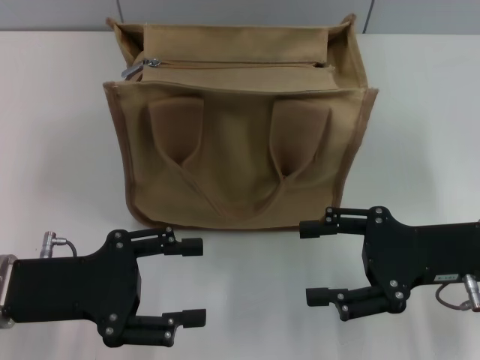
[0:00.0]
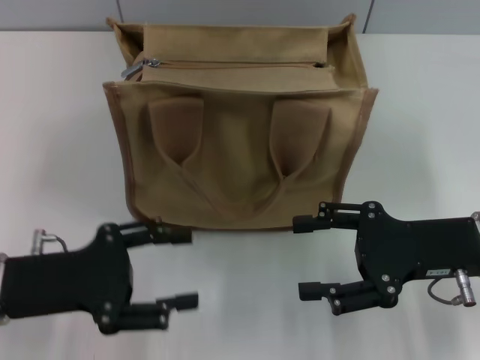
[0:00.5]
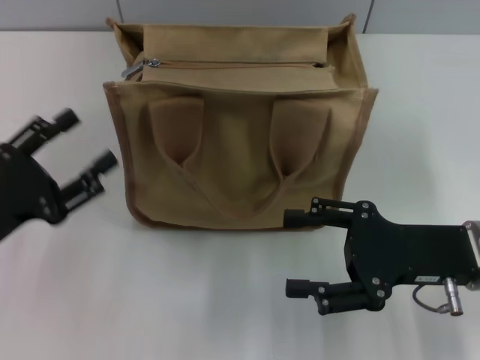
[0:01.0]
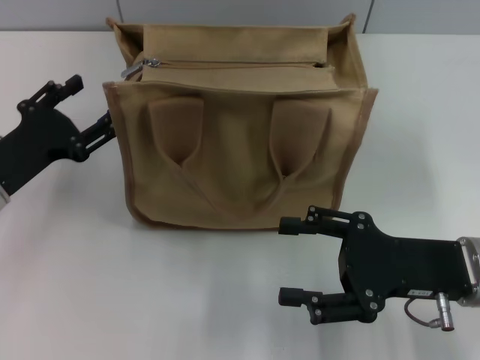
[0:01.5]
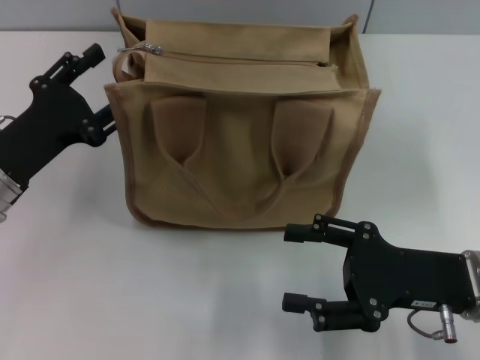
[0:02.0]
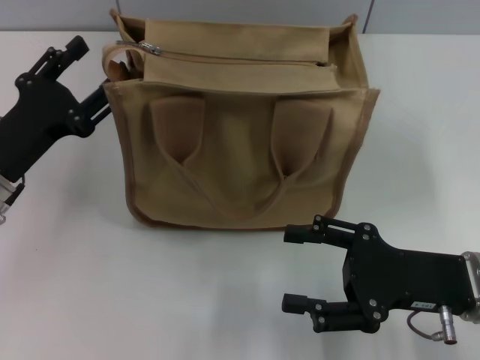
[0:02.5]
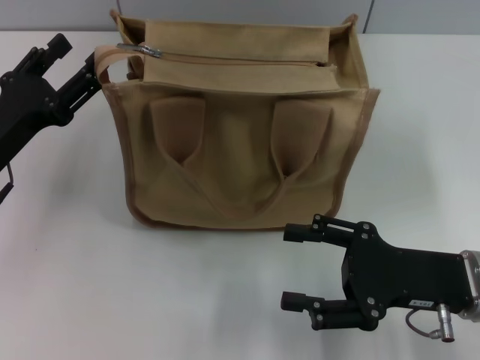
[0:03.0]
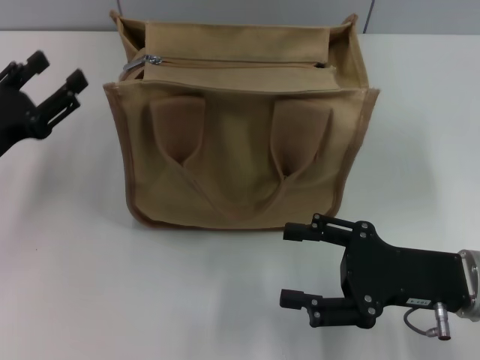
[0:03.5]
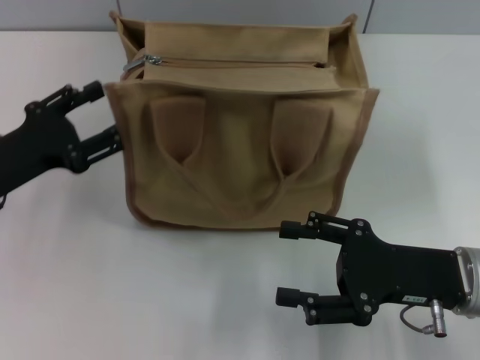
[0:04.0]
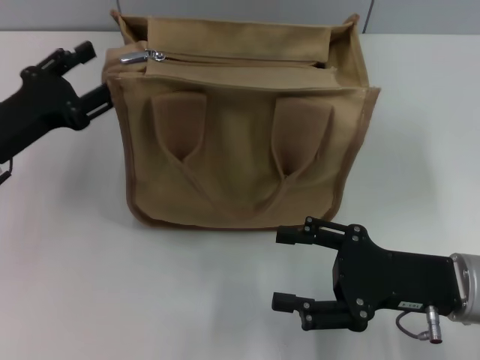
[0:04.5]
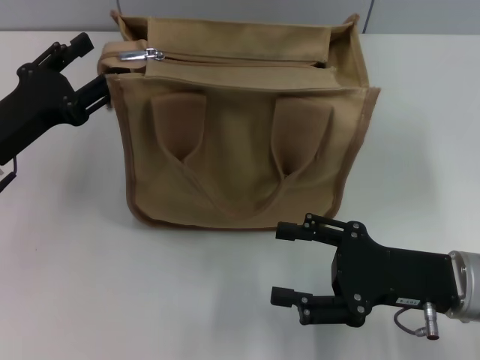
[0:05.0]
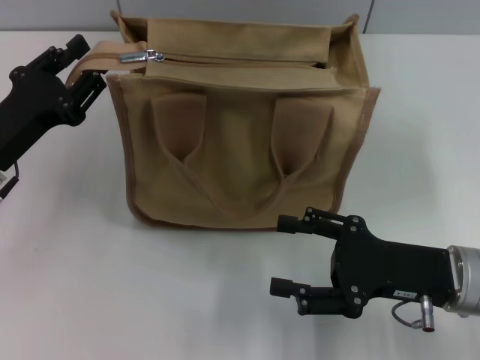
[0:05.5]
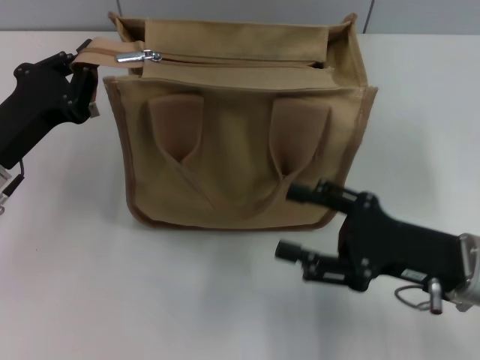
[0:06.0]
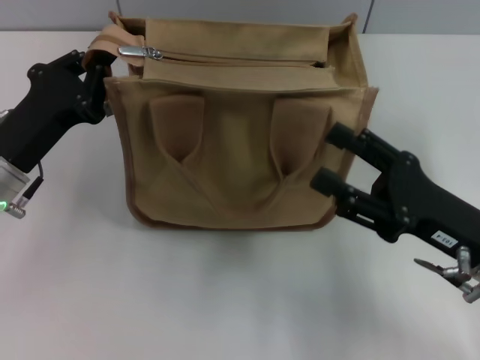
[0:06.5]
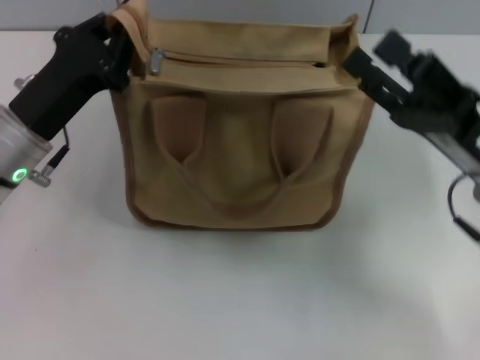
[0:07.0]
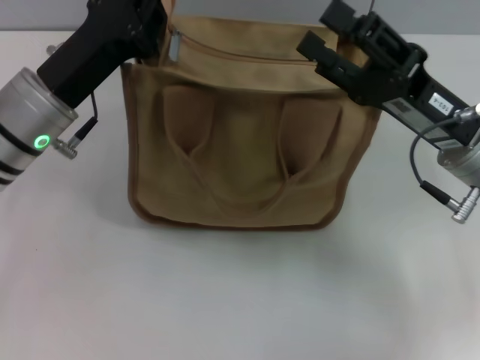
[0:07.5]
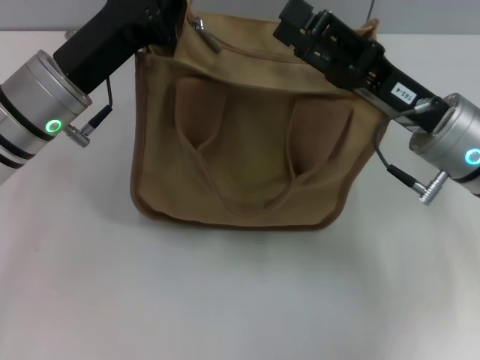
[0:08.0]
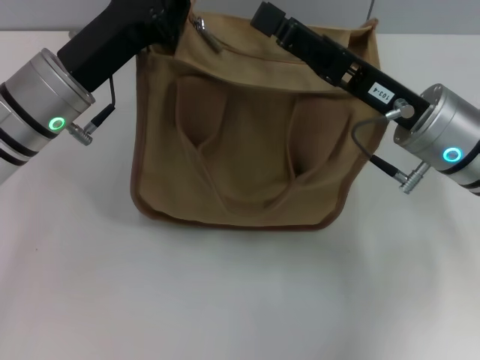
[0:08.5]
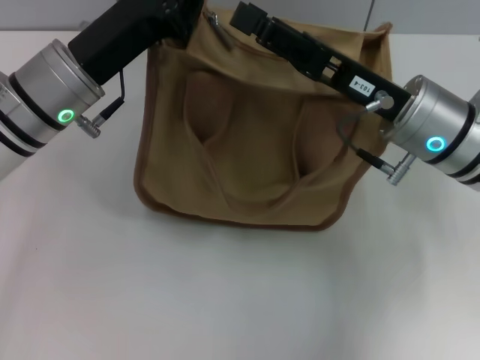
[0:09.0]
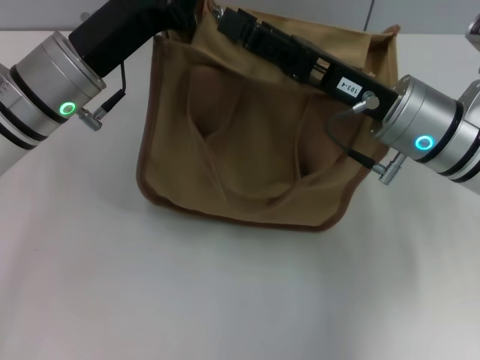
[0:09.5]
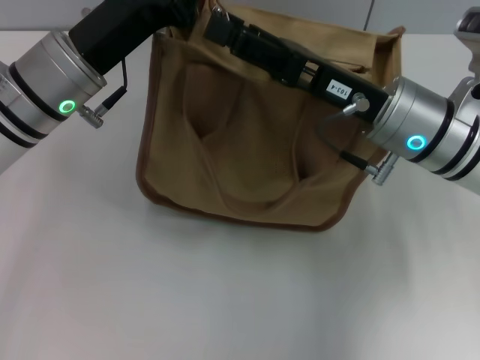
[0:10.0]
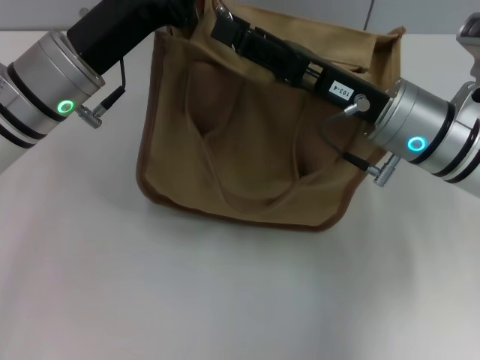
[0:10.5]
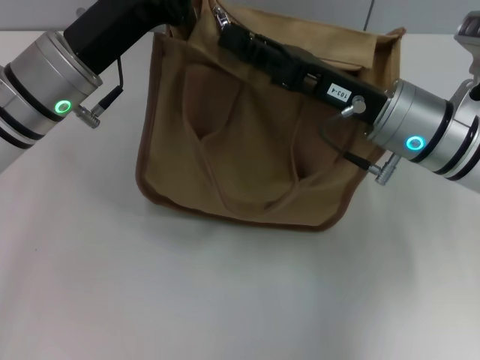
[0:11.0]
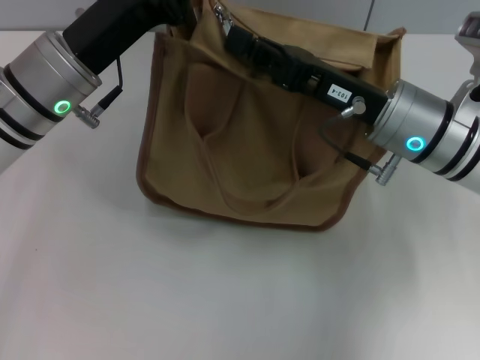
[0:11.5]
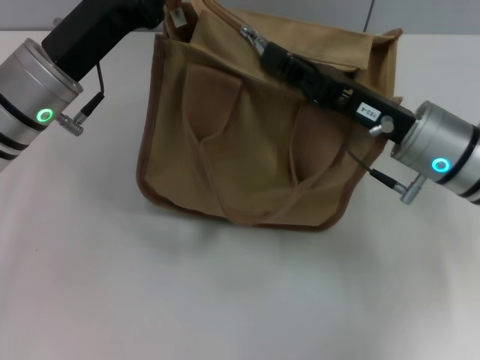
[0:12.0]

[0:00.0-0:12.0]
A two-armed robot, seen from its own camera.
0:00.0 to 0:02.0: The left gripper shifts approximately 5 cm forward.
0:02.0 to 0:04.0: There are only small adjustments of the grippers.
0:04.0 to 0:06.0: The left gripper closes up.
0:06.0 to 0:08.0: The right gripper travels forward and upward by some 10 cm, while the left gripper travels to the right and forward by about 10 cm.
0:10.0 to 0:12.0: The right gripper closes its fingers.

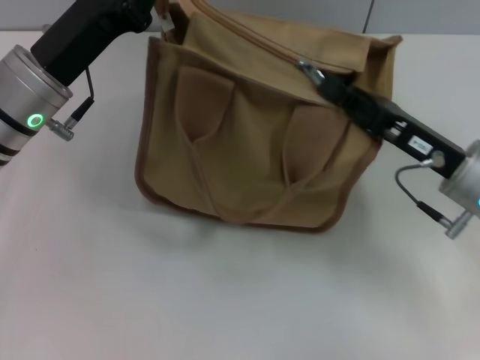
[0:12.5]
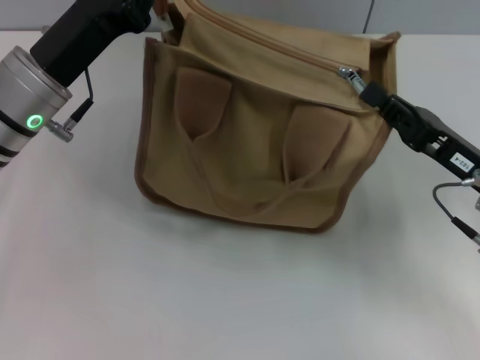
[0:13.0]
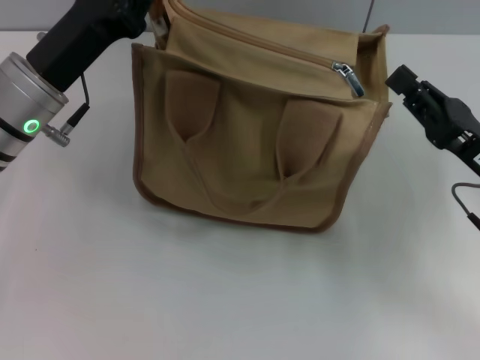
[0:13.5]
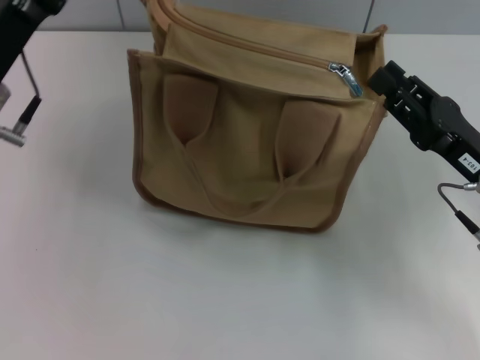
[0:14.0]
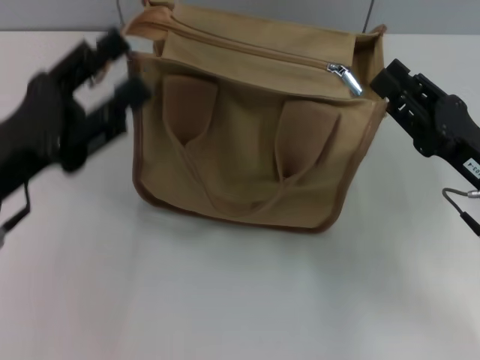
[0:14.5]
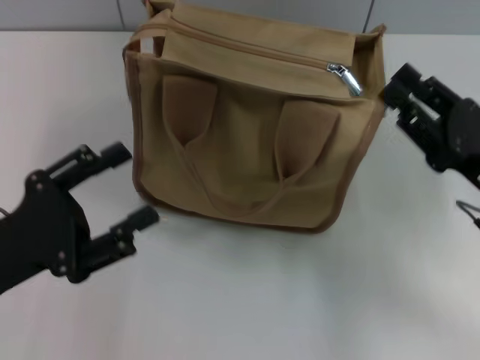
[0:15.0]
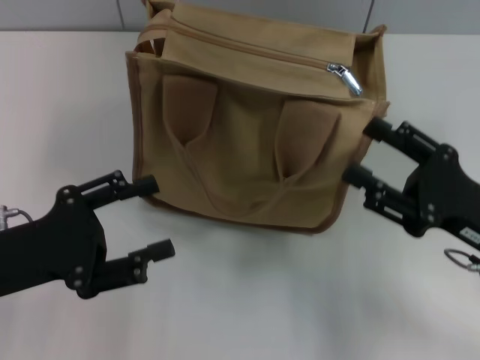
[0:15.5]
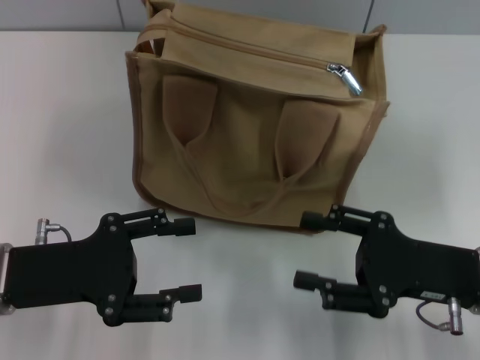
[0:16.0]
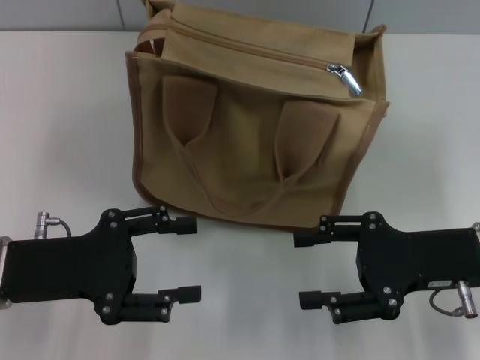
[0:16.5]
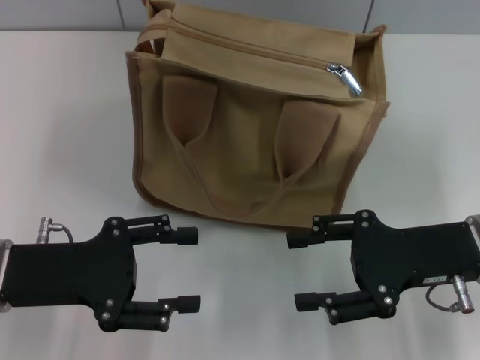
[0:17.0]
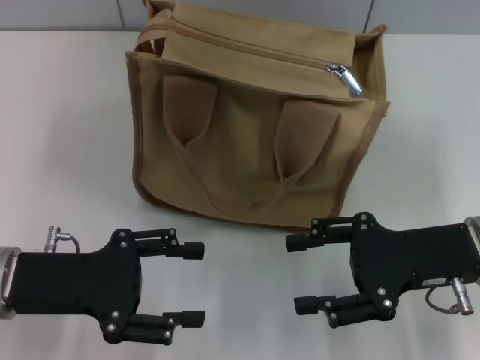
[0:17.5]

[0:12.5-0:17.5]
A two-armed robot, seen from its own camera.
0:12.5 to 0:15.0: The left gripper goes about 15 cm backward and to the left, and opens its fingers. The right gripper ends up approximately 5 cm from where it was, and opens up.
